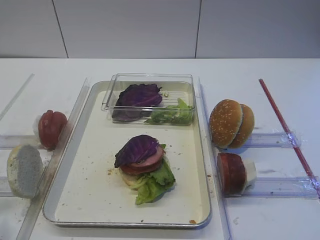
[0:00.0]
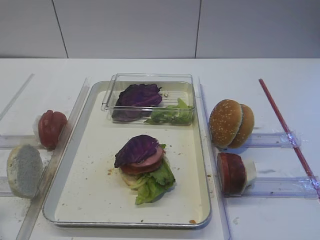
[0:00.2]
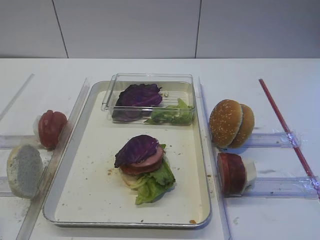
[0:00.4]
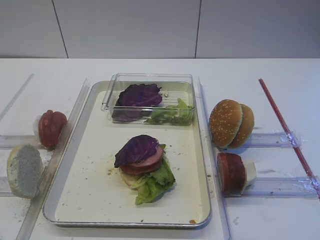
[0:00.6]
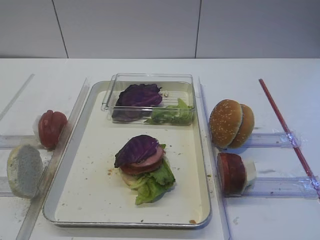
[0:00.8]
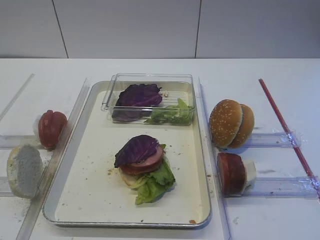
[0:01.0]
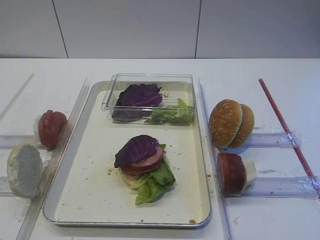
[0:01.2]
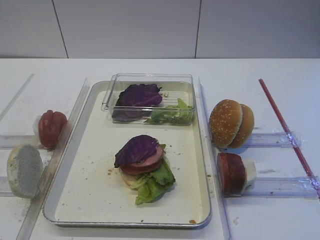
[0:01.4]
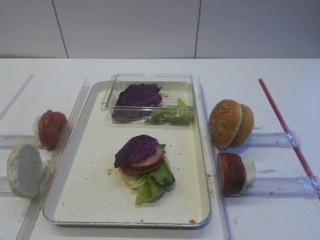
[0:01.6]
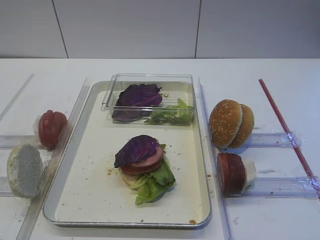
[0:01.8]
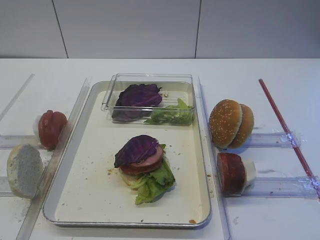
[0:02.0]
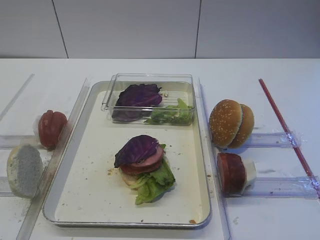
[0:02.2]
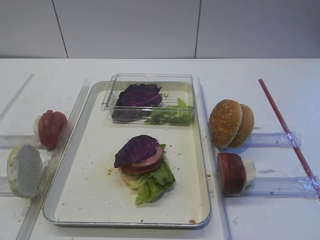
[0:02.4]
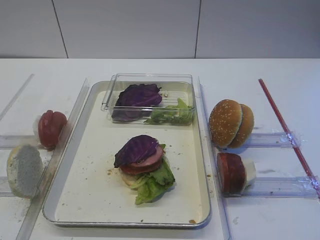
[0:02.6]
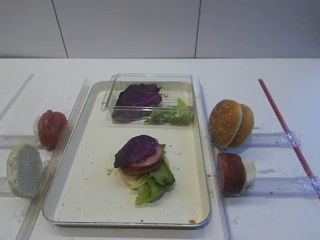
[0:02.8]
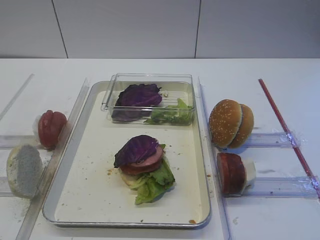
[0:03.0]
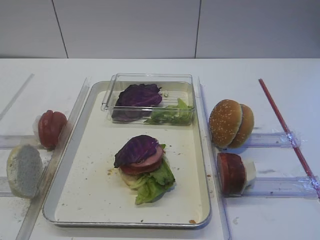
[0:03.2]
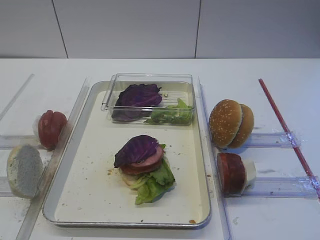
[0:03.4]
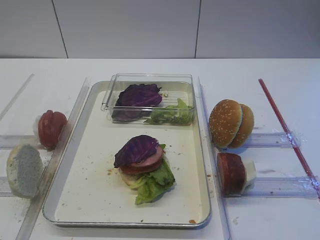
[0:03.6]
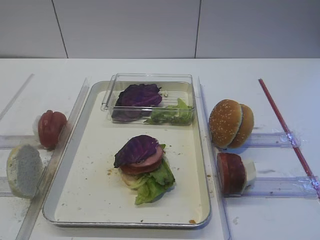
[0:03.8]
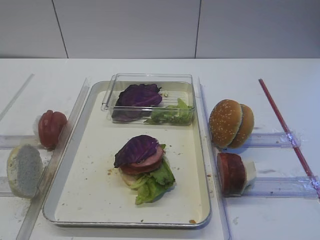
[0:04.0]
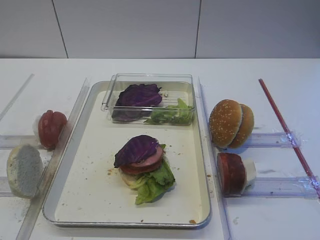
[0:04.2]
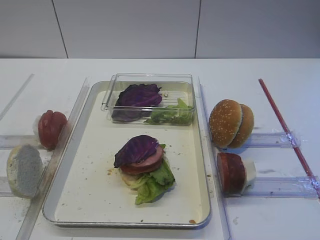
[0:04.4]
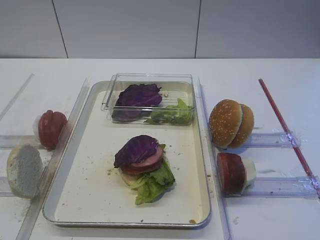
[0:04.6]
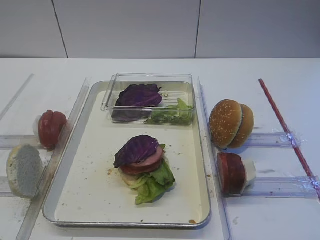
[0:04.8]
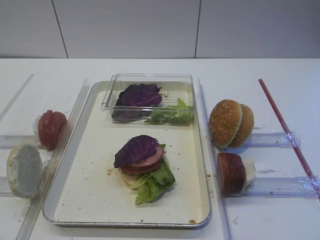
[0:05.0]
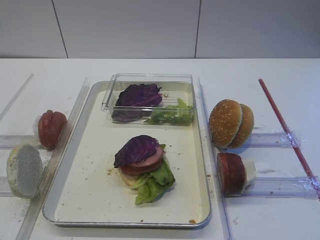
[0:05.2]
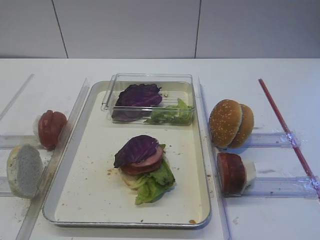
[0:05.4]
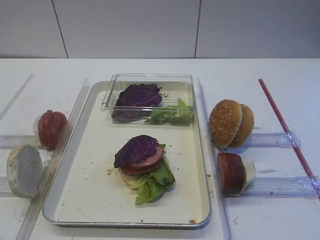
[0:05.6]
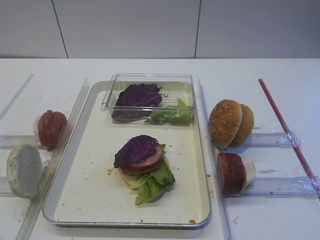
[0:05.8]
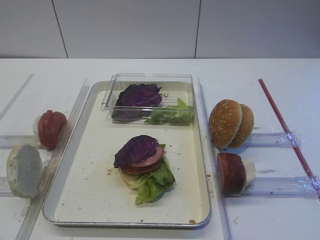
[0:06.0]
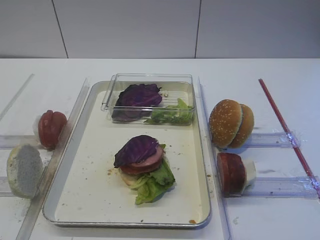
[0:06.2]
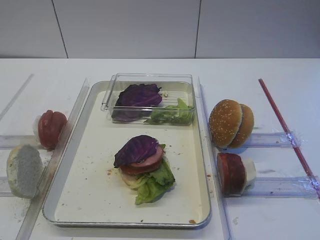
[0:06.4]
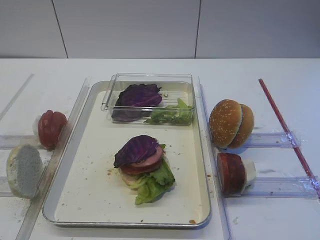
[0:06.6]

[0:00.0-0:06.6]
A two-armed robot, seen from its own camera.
0:01.6 to 0:06.6: Both grippers stay about where they are.

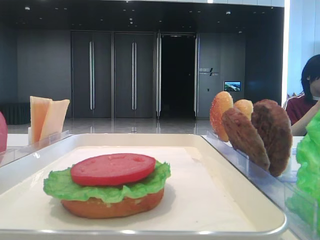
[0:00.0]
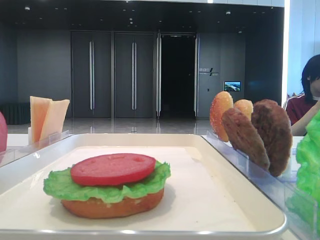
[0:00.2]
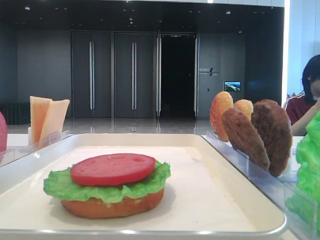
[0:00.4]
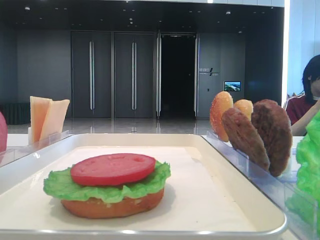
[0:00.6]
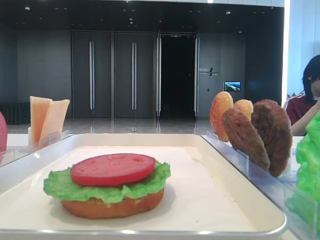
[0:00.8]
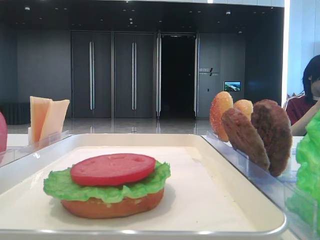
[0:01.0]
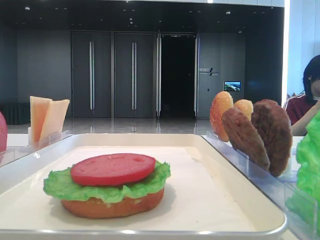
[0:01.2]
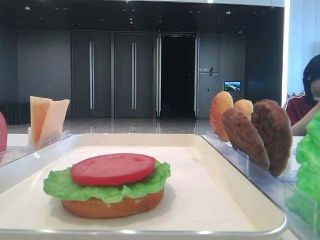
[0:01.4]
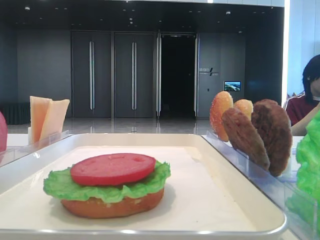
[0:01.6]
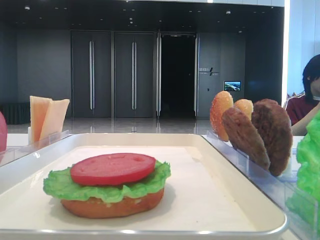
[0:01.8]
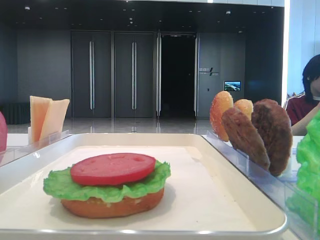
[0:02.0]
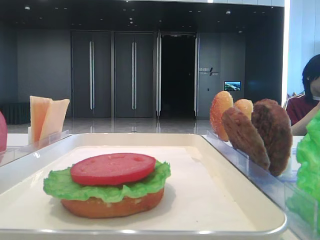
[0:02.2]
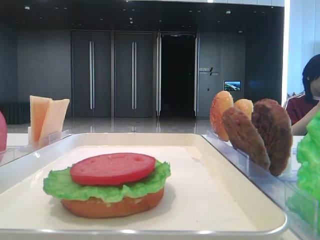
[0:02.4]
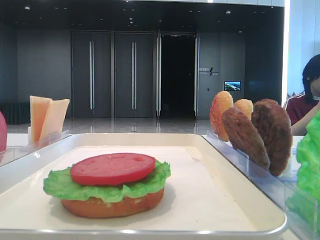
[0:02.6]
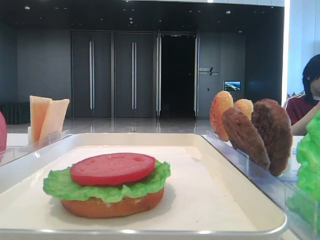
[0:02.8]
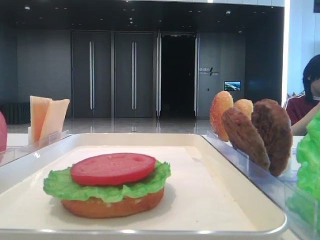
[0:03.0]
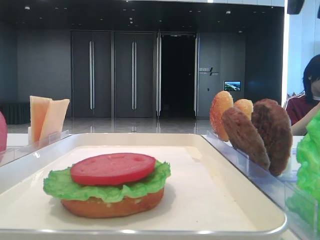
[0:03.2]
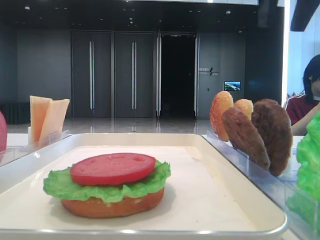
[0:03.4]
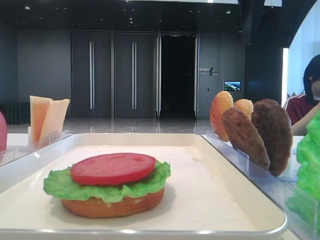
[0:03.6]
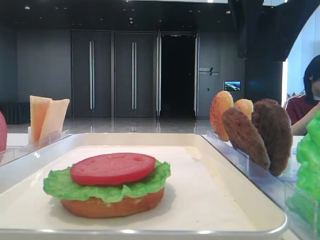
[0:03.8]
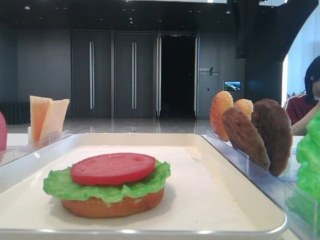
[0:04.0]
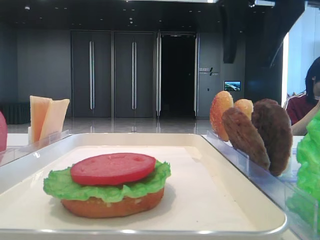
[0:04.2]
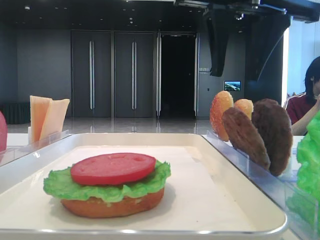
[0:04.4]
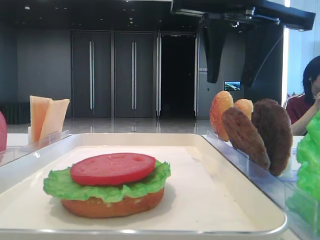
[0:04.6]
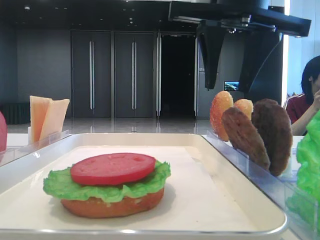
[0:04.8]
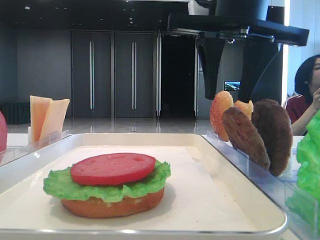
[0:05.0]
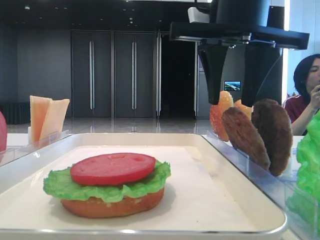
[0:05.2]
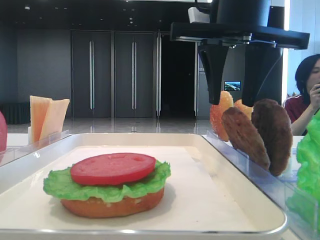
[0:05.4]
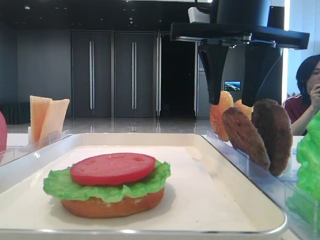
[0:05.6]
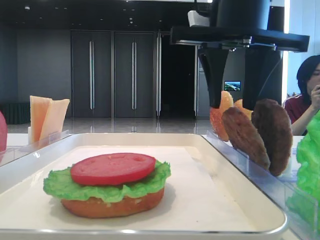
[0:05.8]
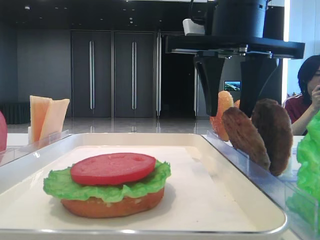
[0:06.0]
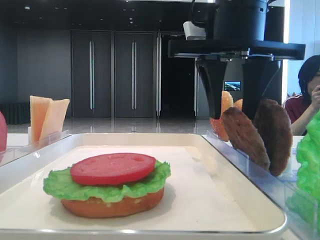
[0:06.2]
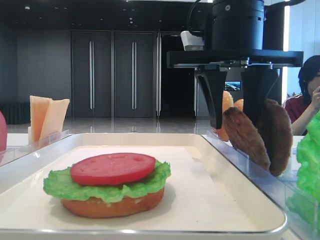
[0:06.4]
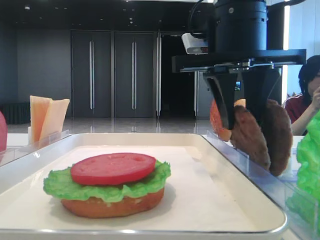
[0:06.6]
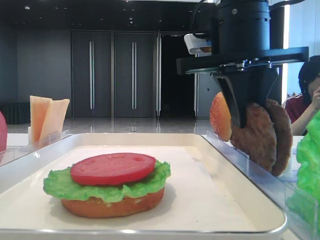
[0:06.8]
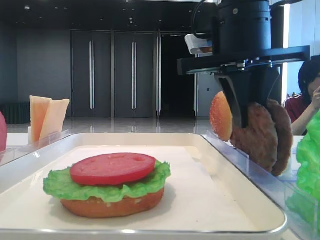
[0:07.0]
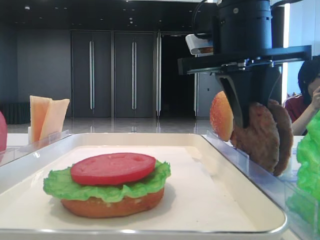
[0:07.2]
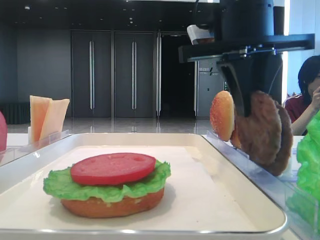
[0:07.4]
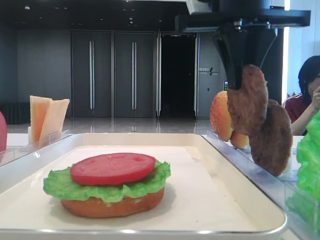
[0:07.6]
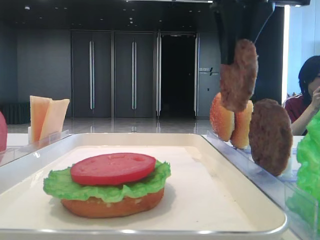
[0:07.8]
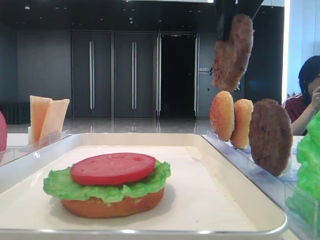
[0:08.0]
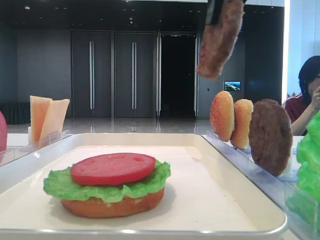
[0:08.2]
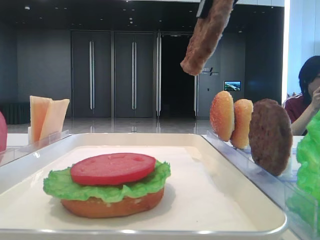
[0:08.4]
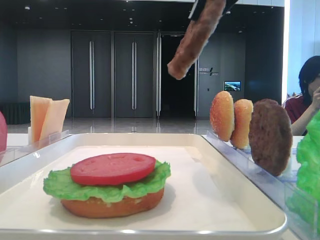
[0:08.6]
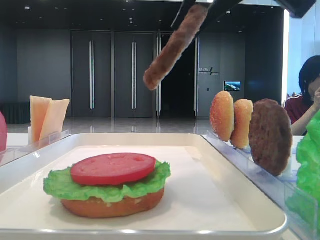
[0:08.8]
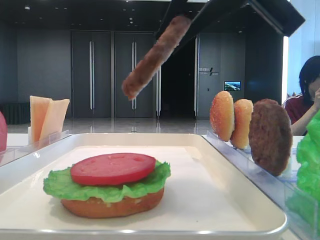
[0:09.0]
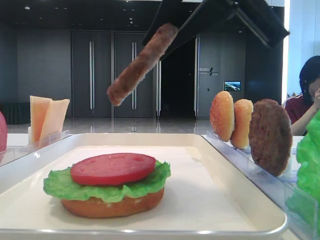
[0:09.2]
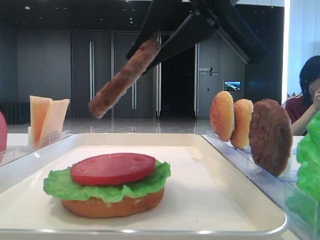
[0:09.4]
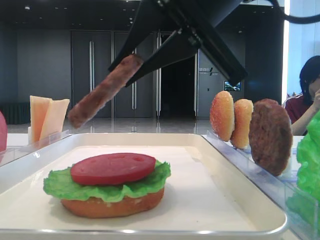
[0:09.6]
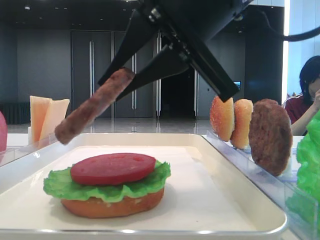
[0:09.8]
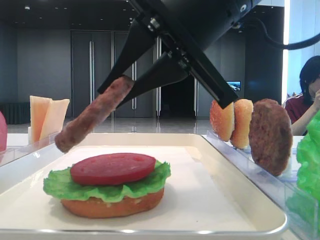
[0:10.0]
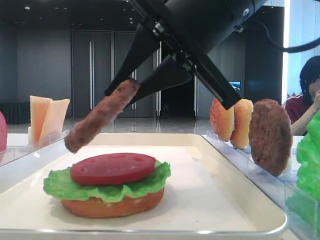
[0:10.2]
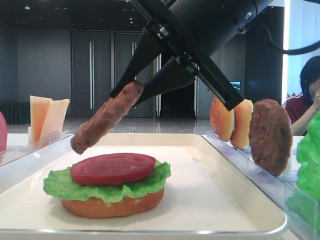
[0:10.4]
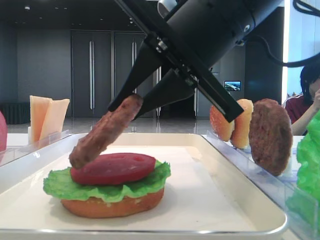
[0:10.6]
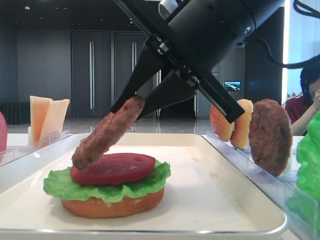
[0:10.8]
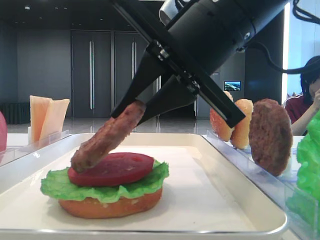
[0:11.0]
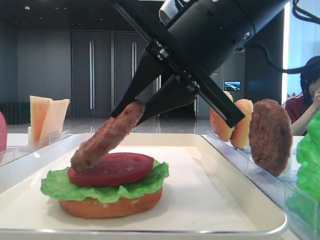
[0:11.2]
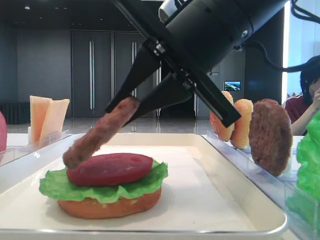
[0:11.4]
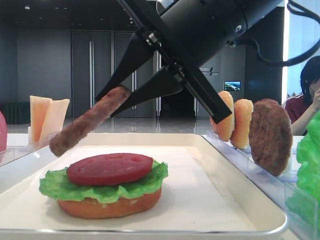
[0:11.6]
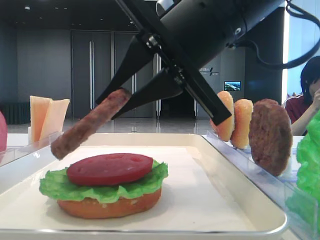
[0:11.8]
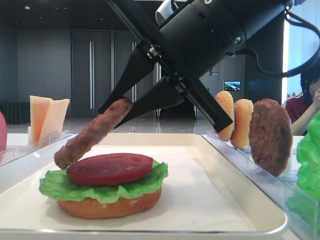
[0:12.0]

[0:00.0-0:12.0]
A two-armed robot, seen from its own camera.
Step, 0:00.0 to 0:07.0: Grab the patty with the right hand.
0:03.0 to 0:04.4: The right gripper goes approximately 15 cm to the left and downward.
0:04.4 to 0:06.0: The right gripper changes place by some 5 cm.
0:06.0 to 0:07.6: The right gripper closes.
0:07.6 to 0:09.0: The right gripper is displaced backward by about 10 cm.
0:09.0 to 0:10.4: The right gripper moves downward, roughly 5 cm.
0:10.4 to 0:12.0: There are only small adjustments of the grippers.

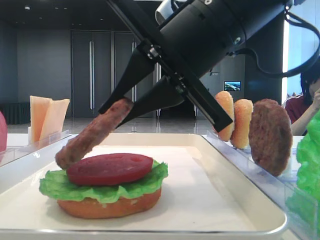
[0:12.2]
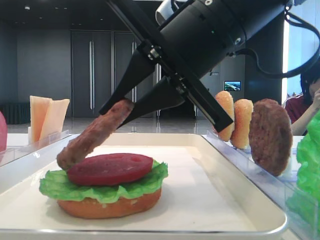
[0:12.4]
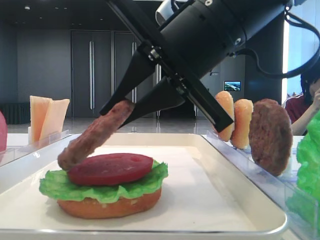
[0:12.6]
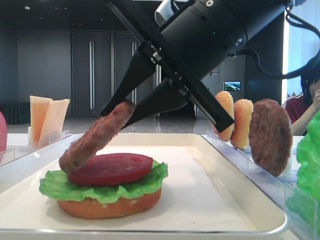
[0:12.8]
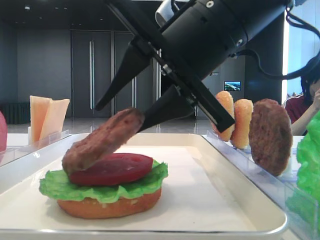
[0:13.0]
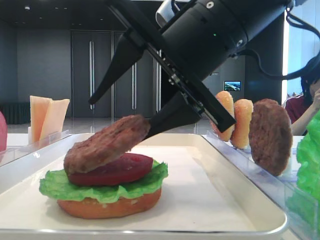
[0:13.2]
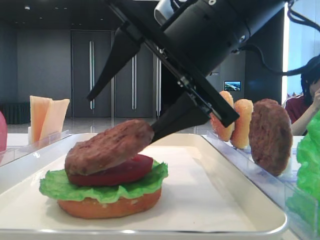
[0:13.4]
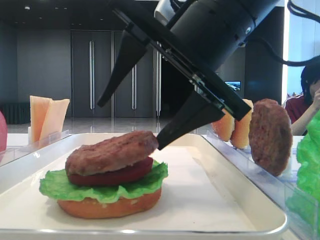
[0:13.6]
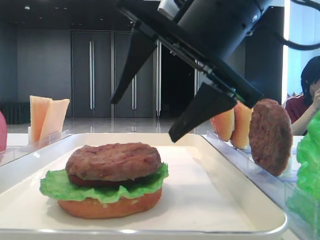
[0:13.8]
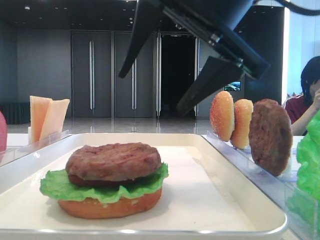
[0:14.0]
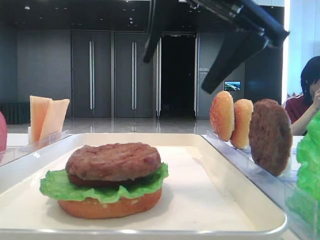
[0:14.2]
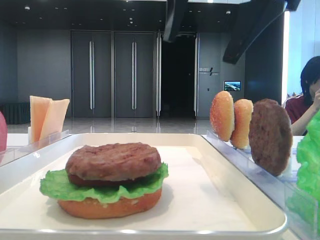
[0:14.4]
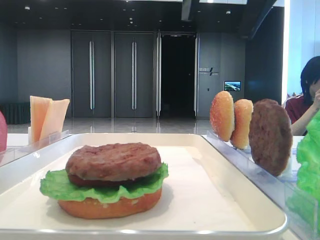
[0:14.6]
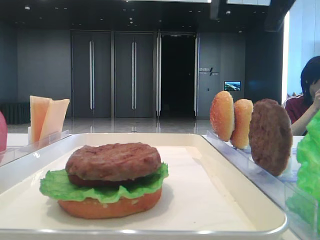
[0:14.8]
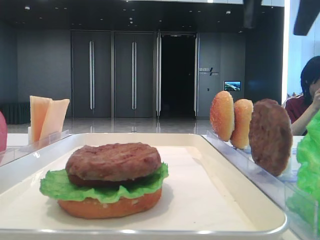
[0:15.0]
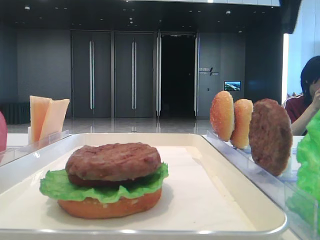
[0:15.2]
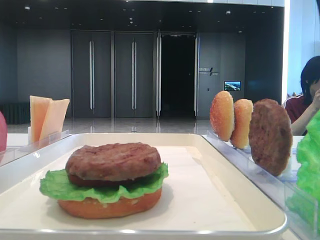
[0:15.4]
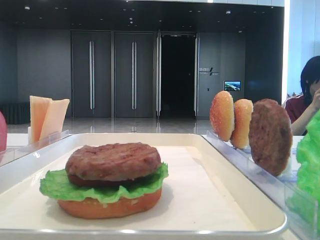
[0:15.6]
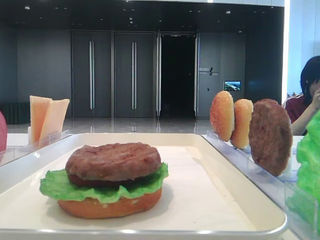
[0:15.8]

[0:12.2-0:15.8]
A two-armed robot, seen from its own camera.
0:12.2 to 0:14.0: The right gripper opens up.
0:14.0 to 0:15.8: The right gripper goes some 25 cm to the right and upward.
